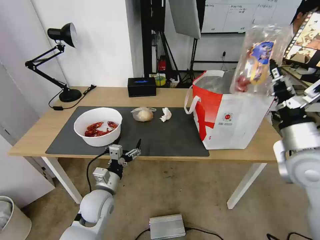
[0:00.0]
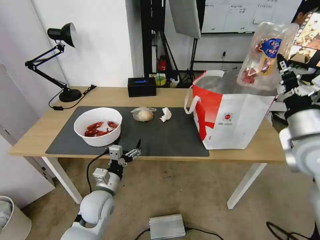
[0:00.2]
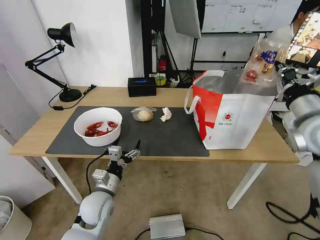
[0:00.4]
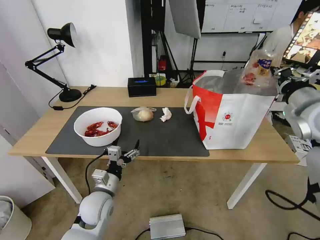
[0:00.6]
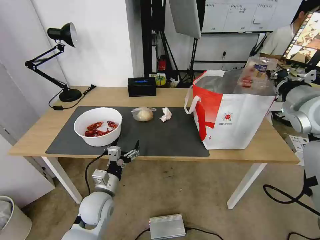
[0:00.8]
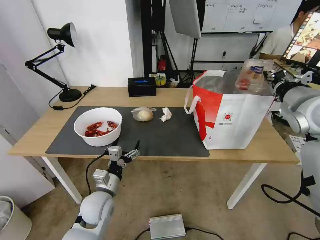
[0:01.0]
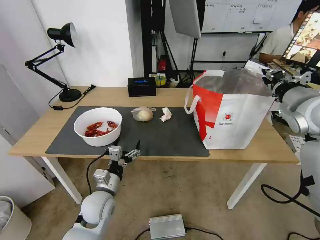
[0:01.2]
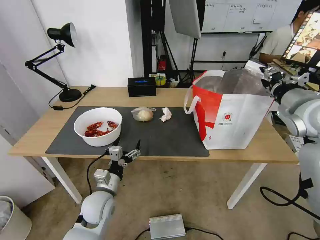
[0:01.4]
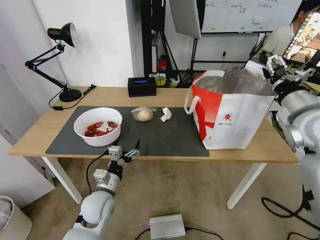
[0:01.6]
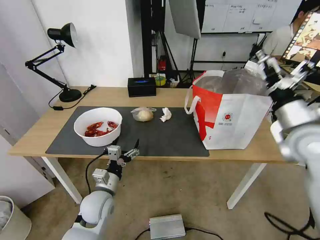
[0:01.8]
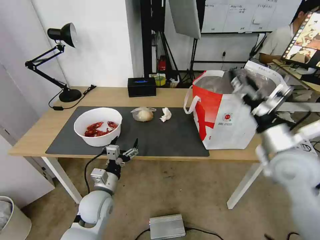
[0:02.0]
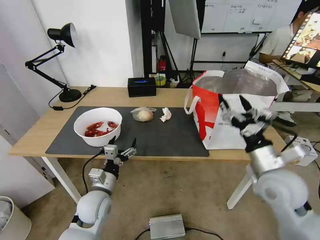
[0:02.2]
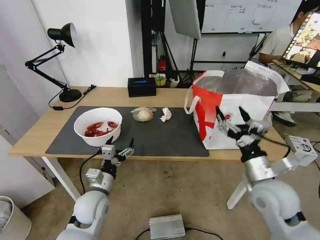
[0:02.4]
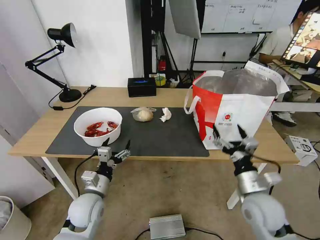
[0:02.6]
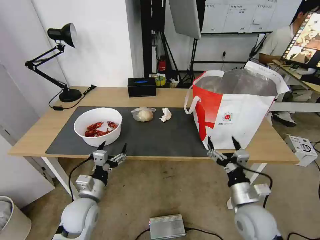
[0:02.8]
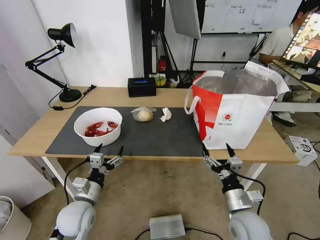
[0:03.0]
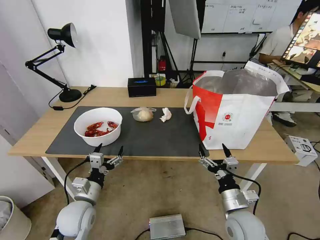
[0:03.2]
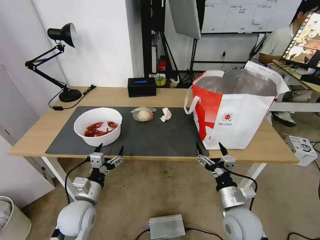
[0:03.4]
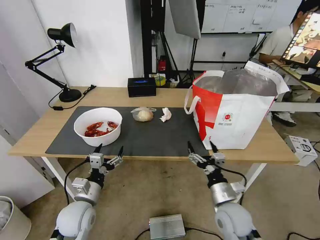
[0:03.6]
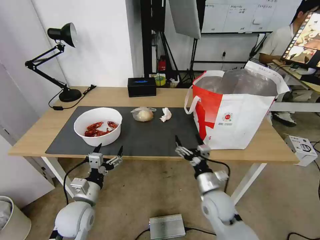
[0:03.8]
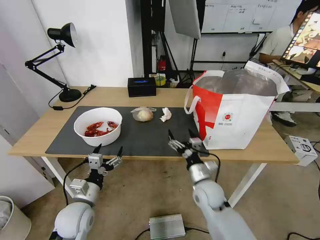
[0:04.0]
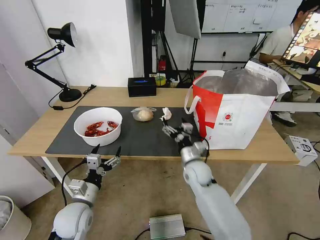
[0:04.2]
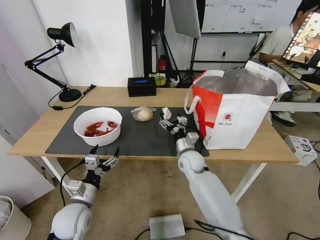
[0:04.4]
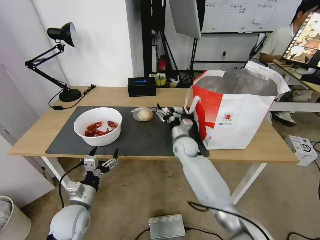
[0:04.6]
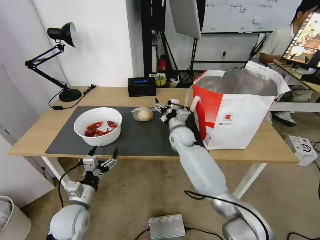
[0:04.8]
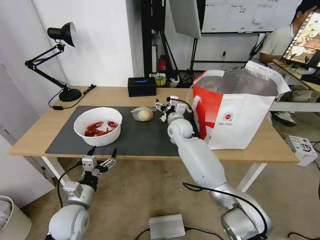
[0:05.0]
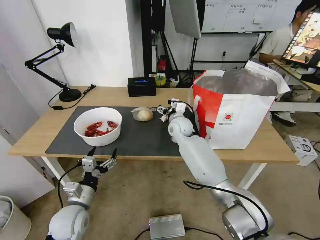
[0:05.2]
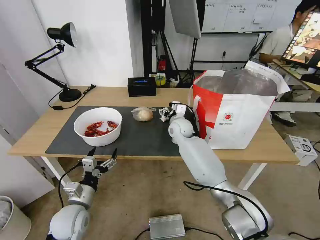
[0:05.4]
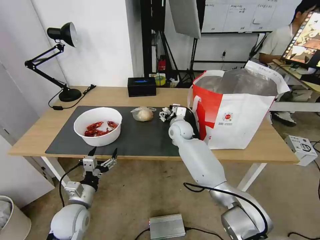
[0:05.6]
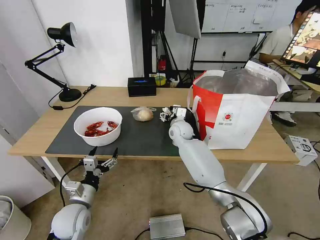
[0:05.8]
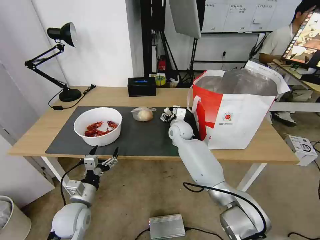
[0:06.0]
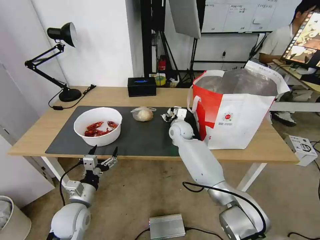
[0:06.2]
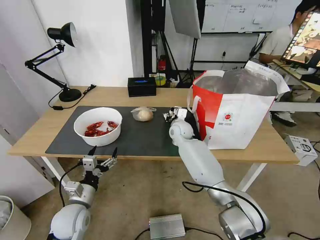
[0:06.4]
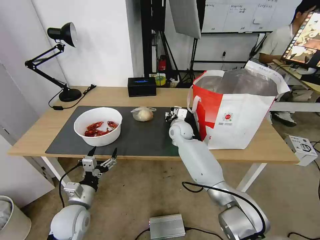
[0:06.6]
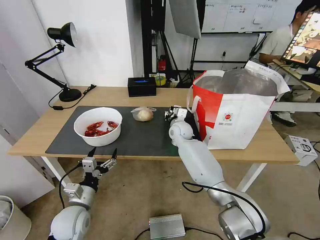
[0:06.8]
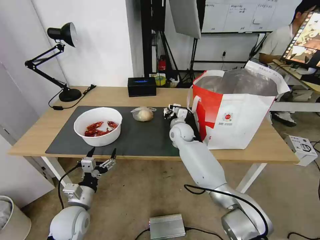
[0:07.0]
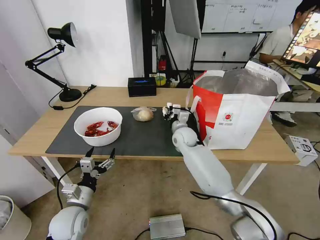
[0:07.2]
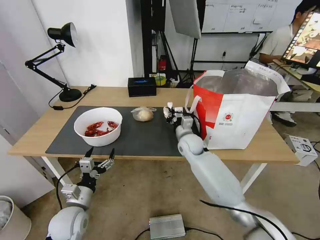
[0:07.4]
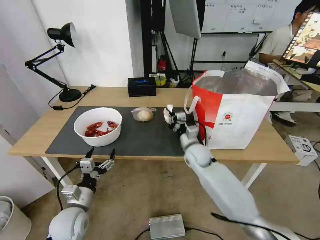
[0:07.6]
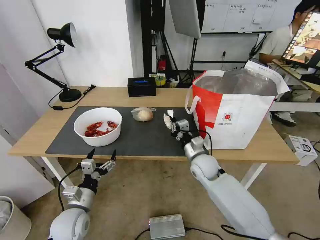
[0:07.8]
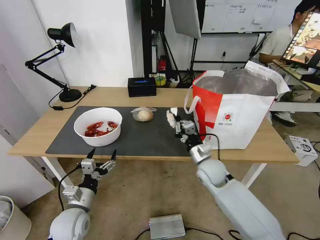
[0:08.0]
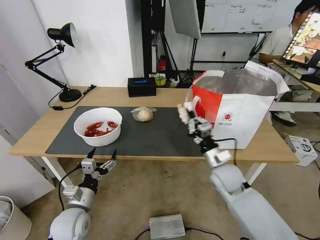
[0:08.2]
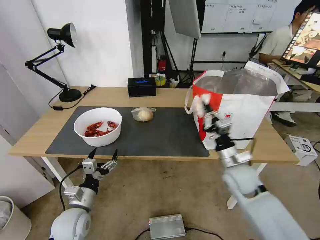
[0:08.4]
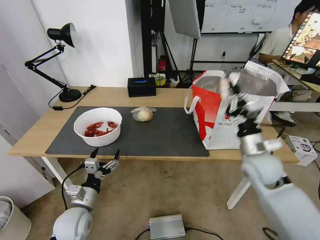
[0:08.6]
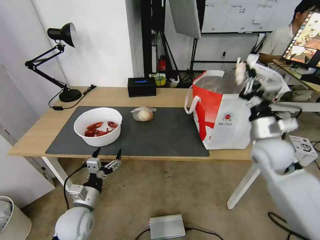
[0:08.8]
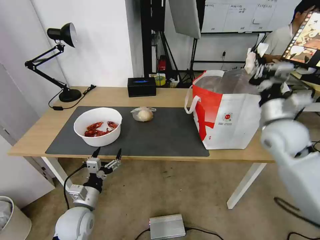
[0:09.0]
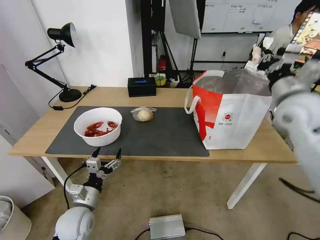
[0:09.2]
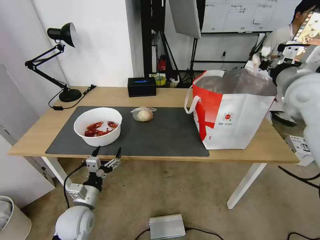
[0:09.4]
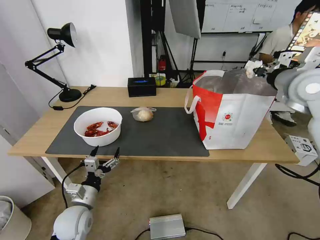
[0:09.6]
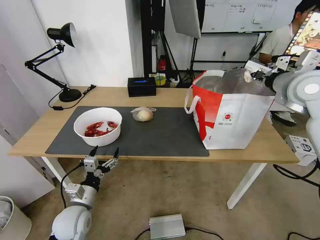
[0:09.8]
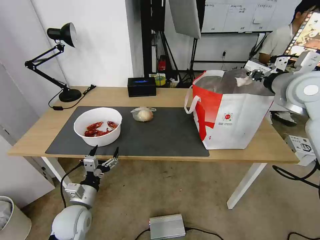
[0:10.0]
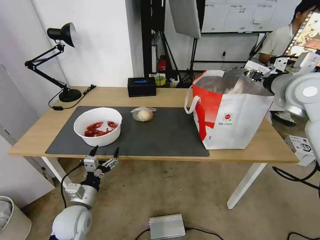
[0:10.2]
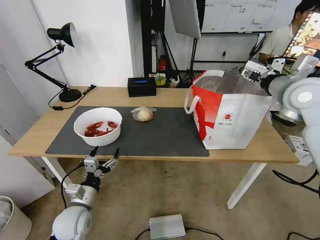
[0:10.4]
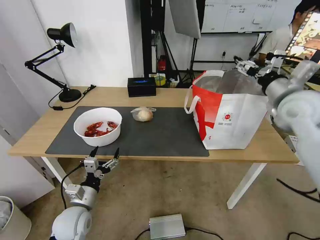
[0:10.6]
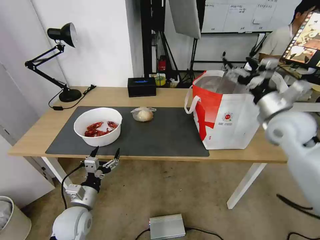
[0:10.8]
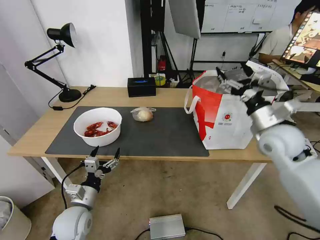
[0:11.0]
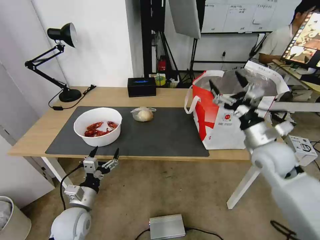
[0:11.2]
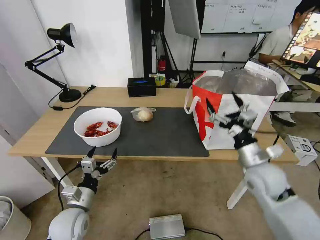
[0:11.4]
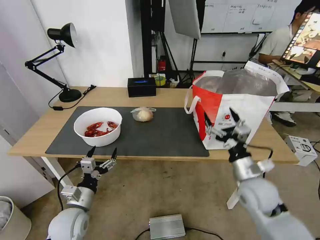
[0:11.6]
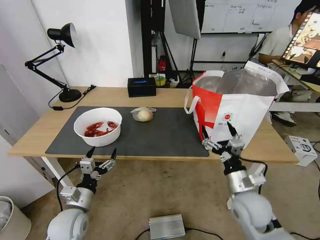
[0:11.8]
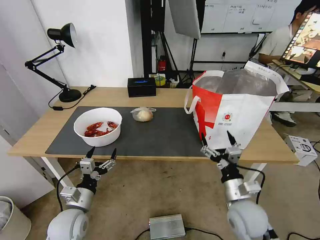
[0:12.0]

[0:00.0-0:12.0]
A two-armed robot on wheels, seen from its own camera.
Task of the whole recording: Pick up the trash from the table and place it into the takeout bag.
0:00.0 to 0:01.6: The right gripper shifts approximately 10 cm forward and upward, and opens its fingers.
0:01.6 to 0:03.0: The left gripper travels to the left by some 5 cm; the right gripper heads downward, backward and to the left, covering about 35 cm.
0:03.0 to 0:04.4: The right gripper heads forward and to the left, covering roughly 25 cm.
0:04.4 to 0:06.0: The right gripper moves forward and upward, some 15 cm.
0:06.0 to 0:07.6: The right gripper travels backward and to the right by approximately 10 cm, and closes.
0:07.6 to 0:09.0: The right gripper is displaced upward and to the right by approximately 25 cm.
0:09.0 to 0:10.4: The right gripper goes about 10 cm upward and forward, and opens up.
0:10.4 to 0:12.0: The right gripper goes approximately 35 cm downward, backward and to the left.

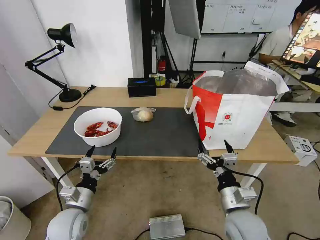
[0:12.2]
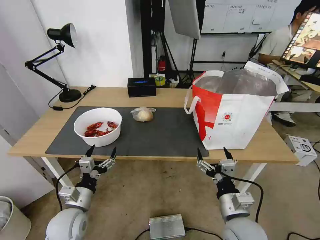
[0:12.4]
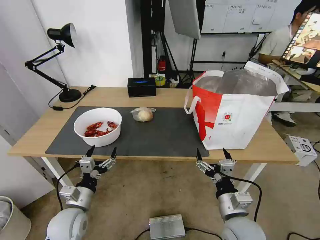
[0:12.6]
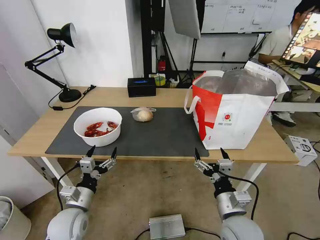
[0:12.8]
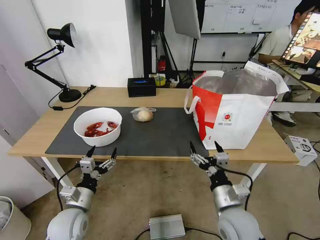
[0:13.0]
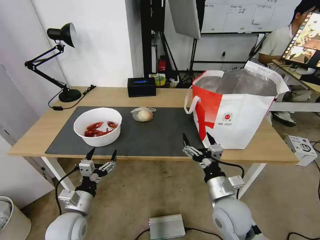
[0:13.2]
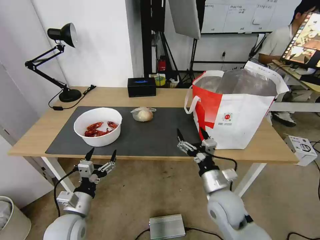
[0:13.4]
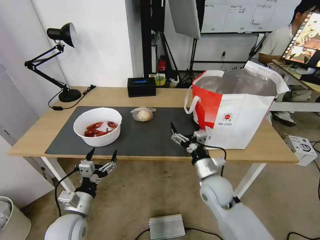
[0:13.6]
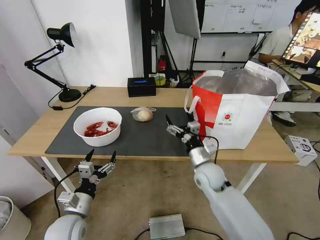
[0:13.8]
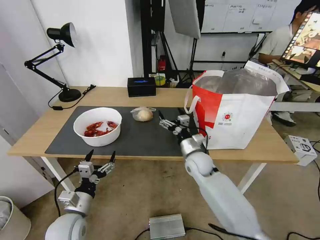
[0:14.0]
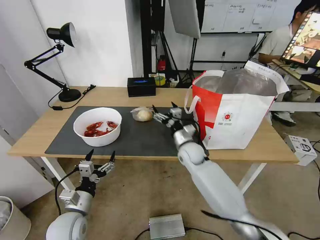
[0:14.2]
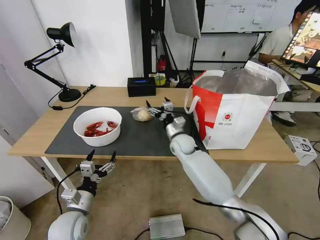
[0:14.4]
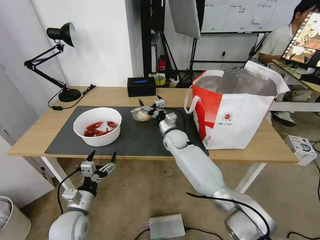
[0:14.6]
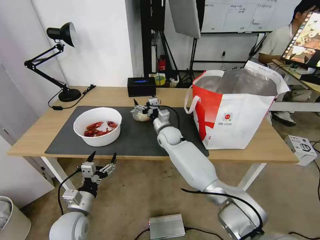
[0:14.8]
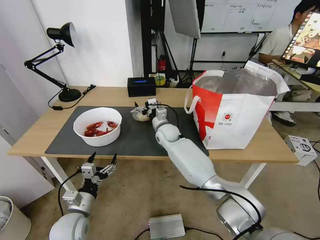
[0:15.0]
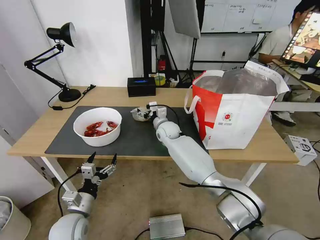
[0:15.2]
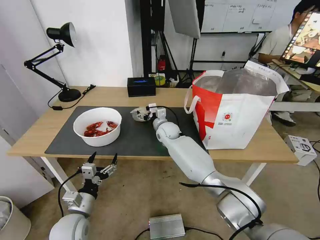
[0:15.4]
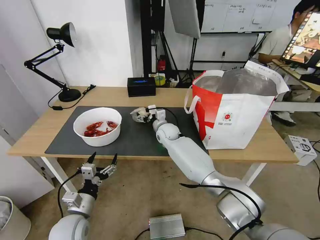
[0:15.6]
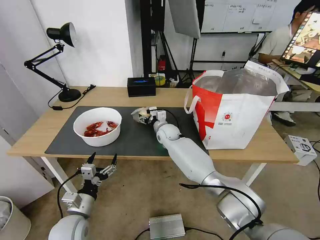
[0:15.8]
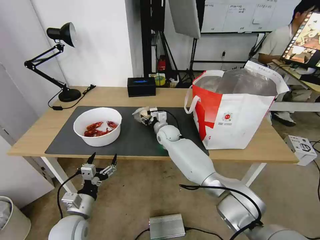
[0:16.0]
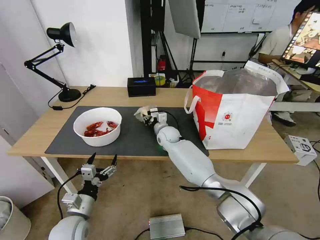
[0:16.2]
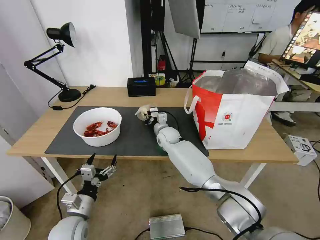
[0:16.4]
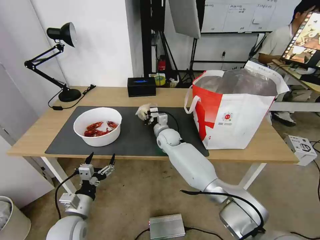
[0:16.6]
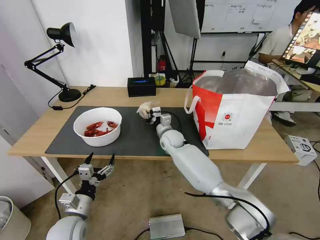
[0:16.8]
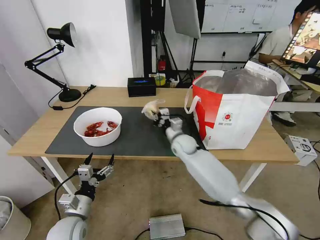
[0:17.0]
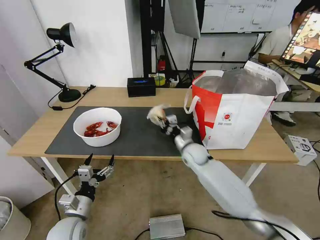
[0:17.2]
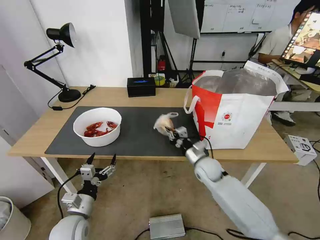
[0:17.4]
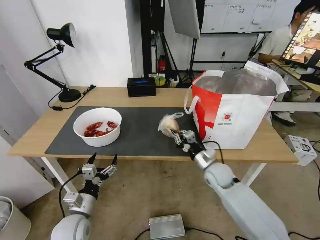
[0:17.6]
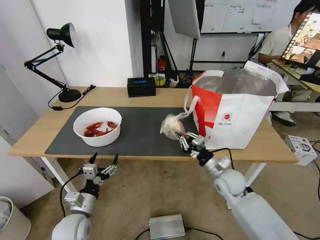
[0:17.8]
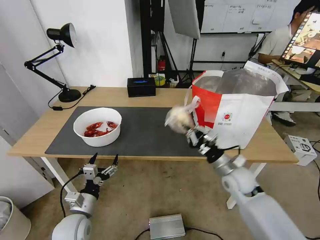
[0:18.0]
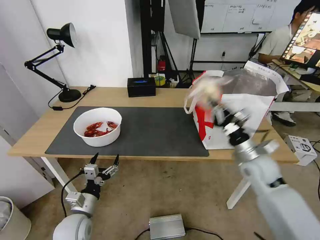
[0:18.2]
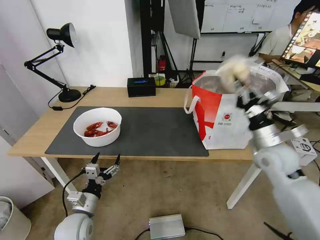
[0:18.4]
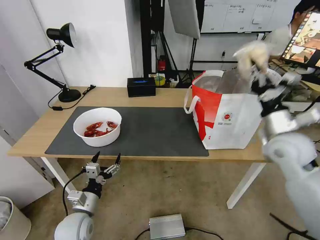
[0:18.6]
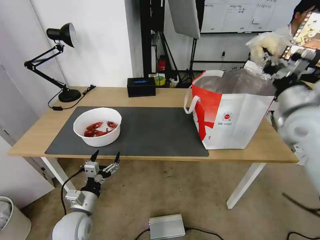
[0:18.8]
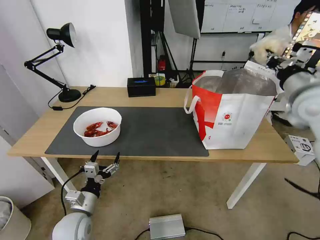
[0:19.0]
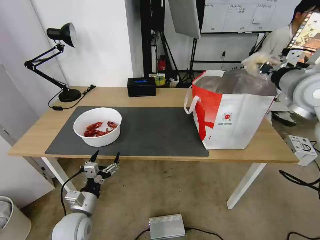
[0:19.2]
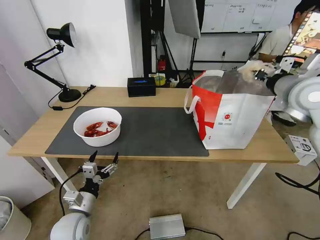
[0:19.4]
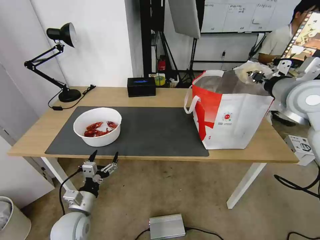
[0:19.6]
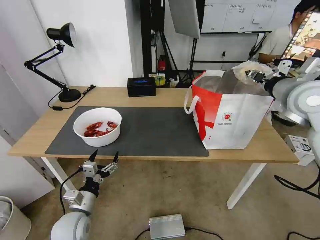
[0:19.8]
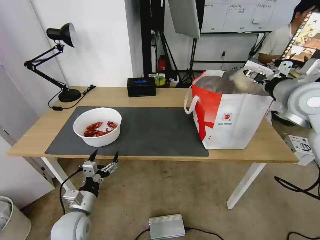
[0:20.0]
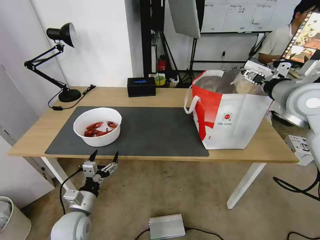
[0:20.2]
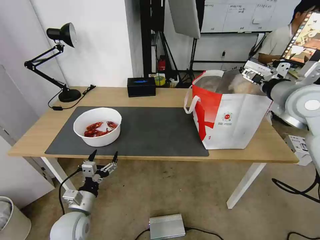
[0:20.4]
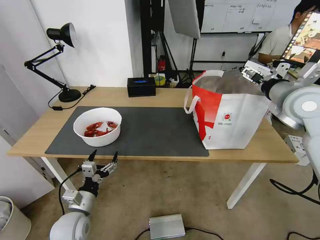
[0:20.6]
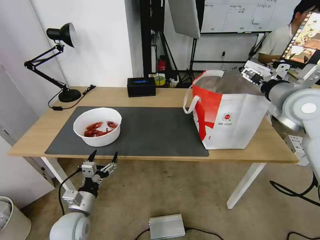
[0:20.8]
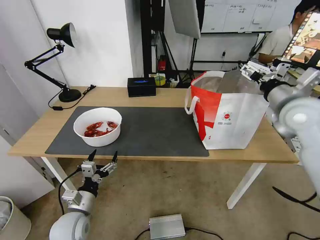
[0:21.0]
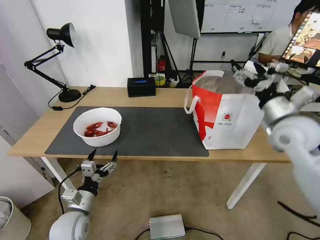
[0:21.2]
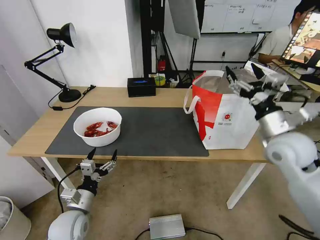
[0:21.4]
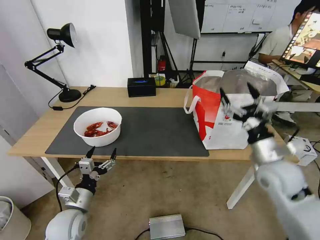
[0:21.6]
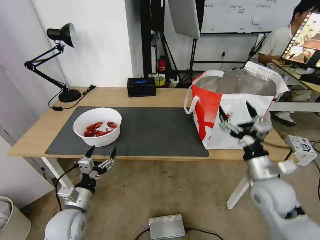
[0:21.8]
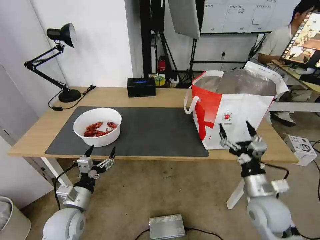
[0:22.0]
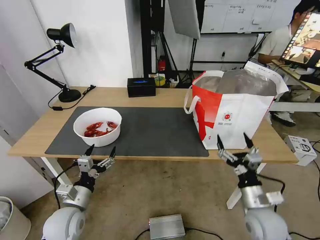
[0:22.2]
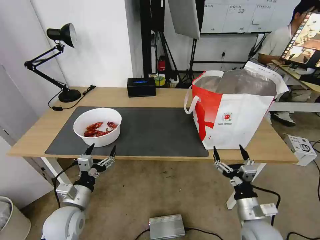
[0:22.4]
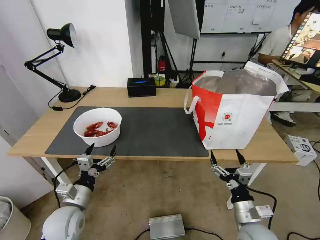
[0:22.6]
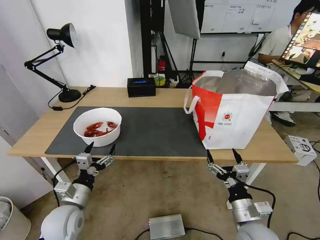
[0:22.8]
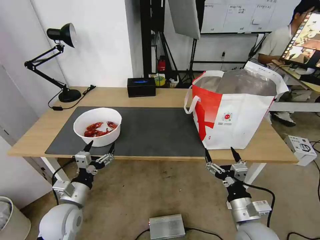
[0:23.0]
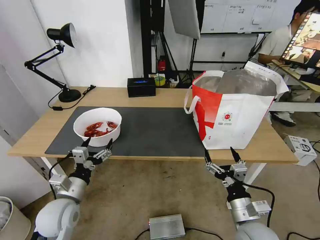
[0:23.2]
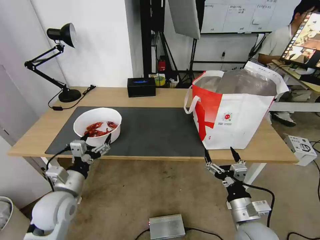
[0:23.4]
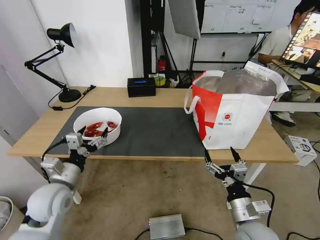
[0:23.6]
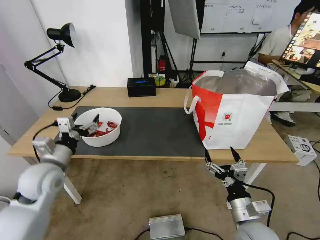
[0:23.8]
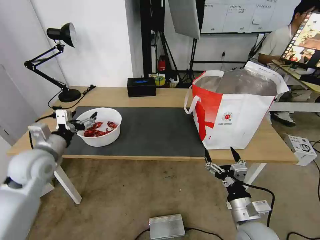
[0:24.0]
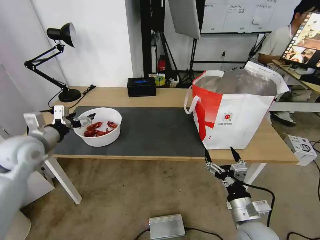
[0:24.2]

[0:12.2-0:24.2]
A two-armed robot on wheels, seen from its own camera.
Task of the whole recording: Pick up the trash from the table and place it into the takeout bag.
0:12.2 to 0:13.8: The right gripper shifts approximately 15 cm forward.
0:13.8 to 0:15.2: The right gripper travels forward and to the left by roughly 25 cm.
0:15.2 to 0:16.6: The right gripper closes.
0:16.6 to 0:18.2: The right gripper travels to the right and backward by roughly 35 cm.
0:18.2 to 0:19.8: The right gripper goes approximately 20 cm upward, and opens its fingers.
0:19.8 to 0:21.2: The right gripper moves downward, approximately 10 cm, and opens its fingers.
0:21.2 to 0:22.6: The right gripper shifts about 30 cm downward and backward.
0:22.6 to 0:24.2: The left gripper goes roughly 25 cm upward, forward and to the left.
